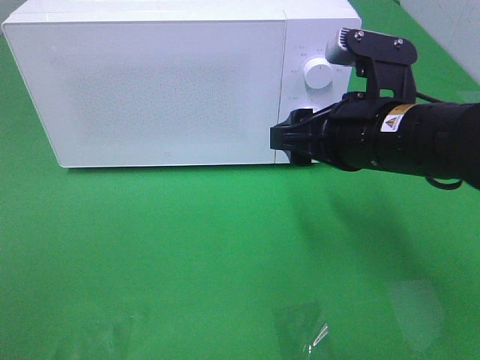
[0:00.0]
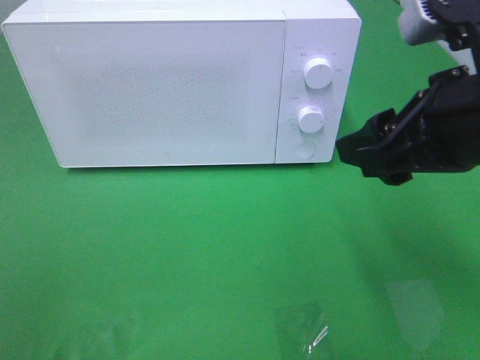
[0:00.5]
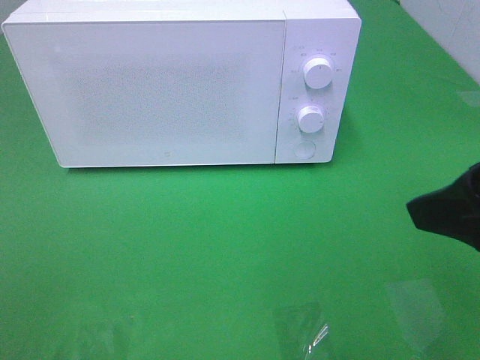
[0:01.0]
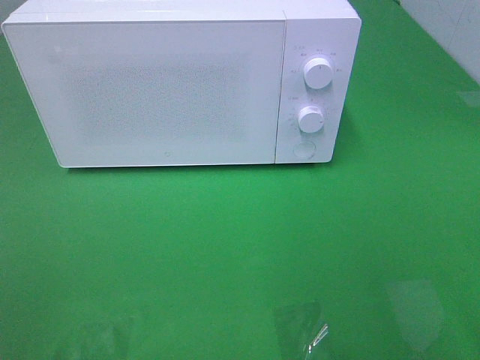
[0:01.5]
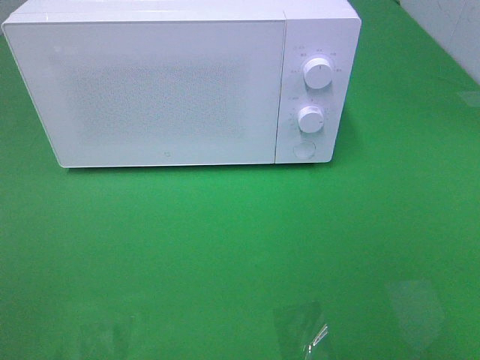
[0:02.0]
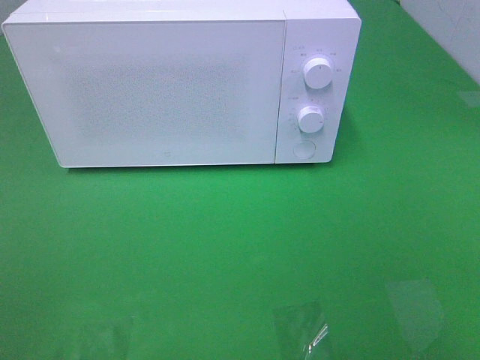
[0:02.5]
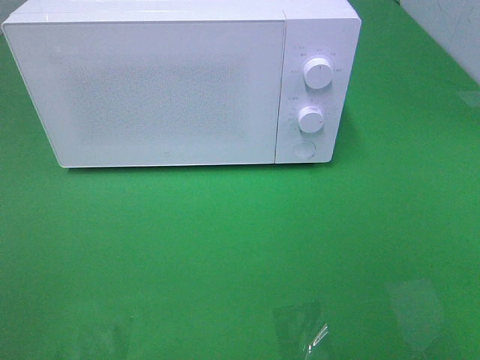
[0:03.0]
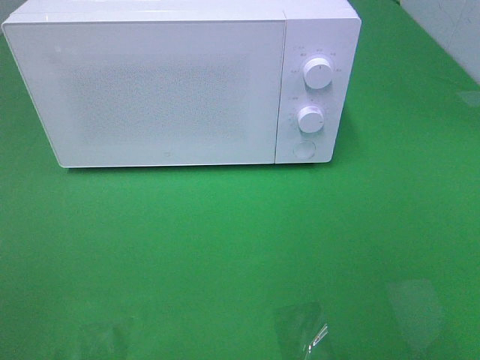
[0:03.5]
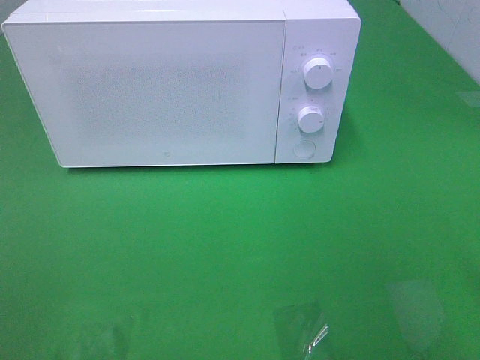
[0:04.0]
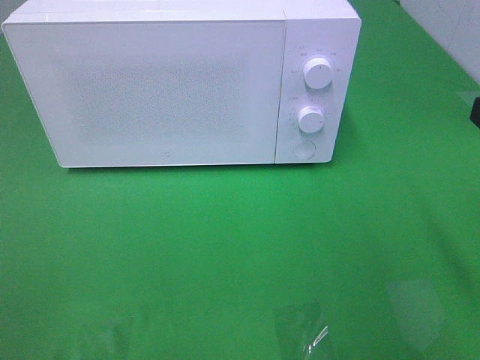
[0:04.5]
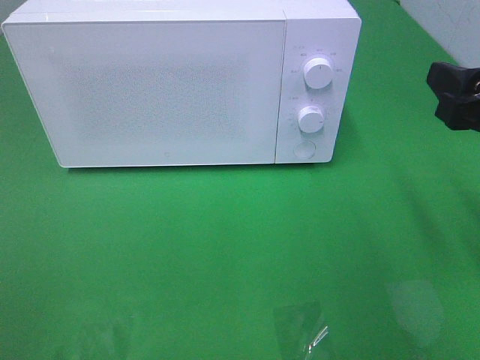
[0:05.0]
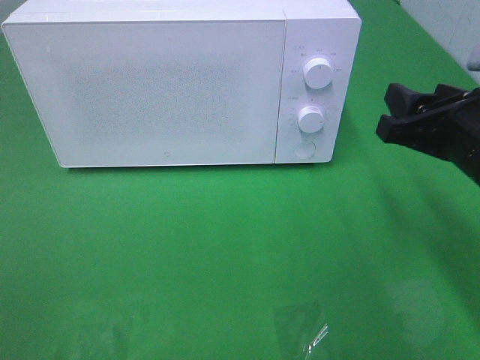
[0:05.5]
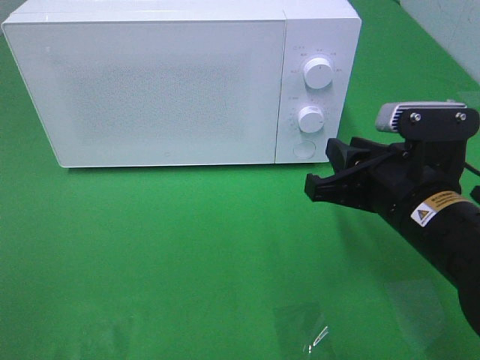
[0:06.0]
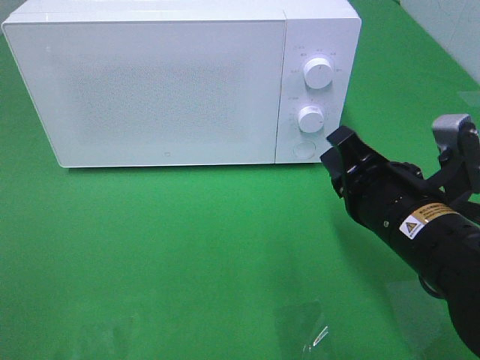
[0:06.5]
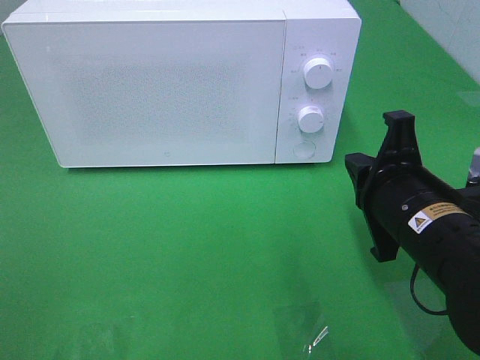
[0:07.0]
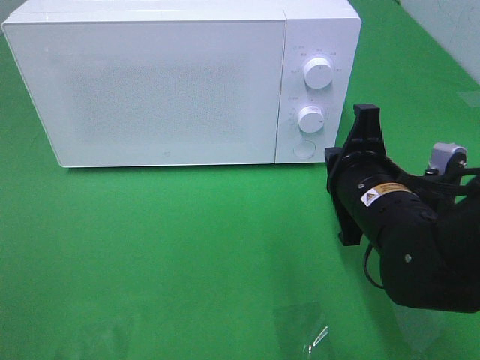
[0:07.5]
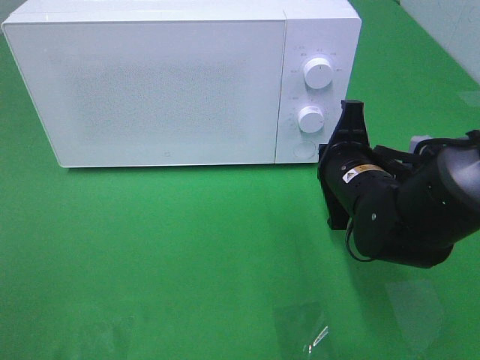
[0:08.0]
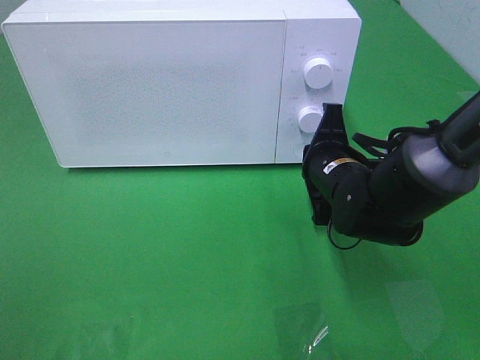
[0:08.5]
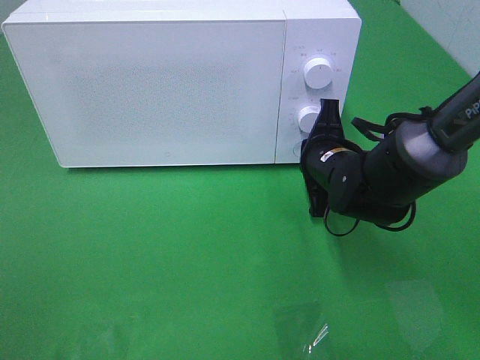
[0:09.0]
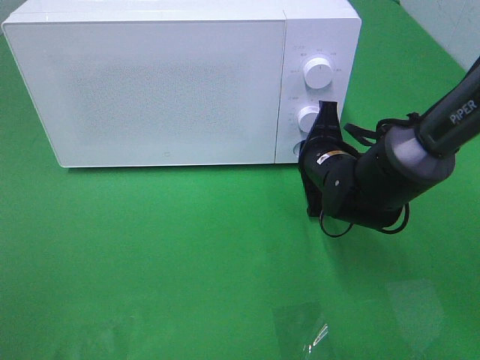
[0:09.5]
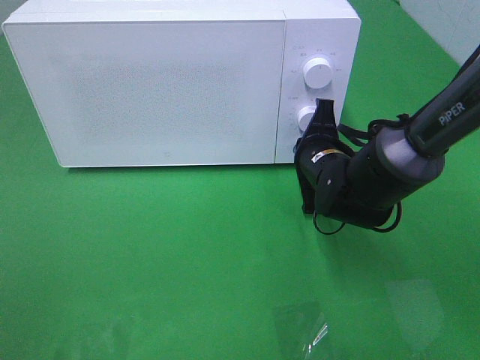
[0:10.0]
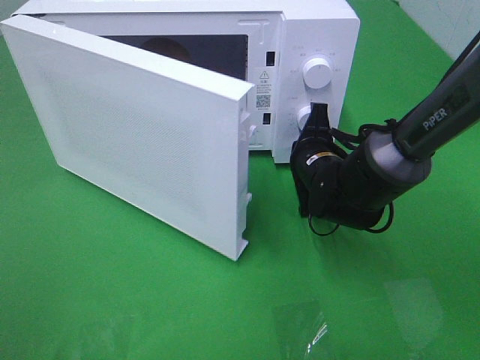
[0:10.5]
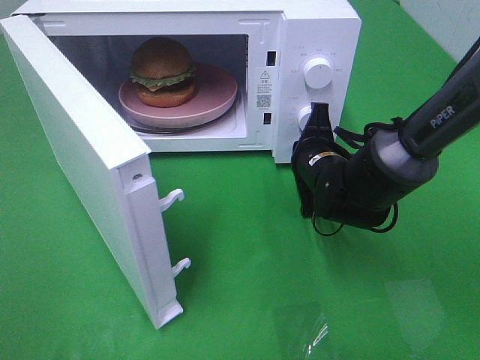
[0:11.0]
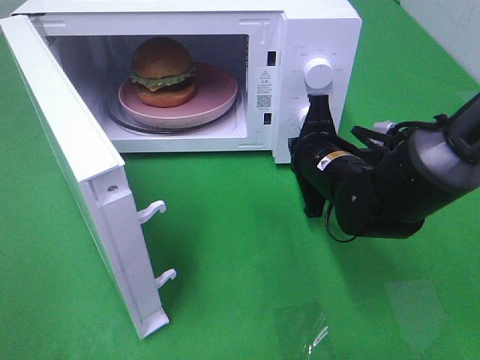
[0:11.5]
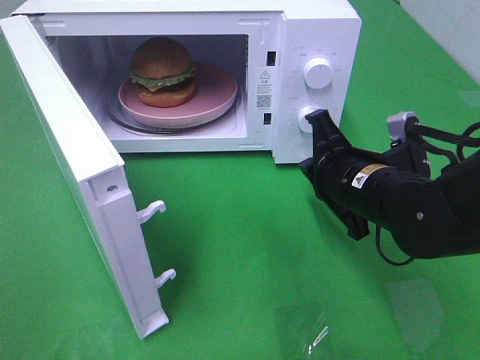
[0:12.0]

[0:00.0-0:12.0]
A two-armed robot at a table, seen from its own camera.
Task of the whole recording: Heat the burger.
Step, 0:00.0 to 0:11.0: Right hand: press the switch.
0:00.0 to 0:02.0: The right gripper travels backward and to the right by approximately 30 cm.
0:04.0 to 0:06.0: The right gripper moves downward, forward and to the left, roughly 20 cm, and closes up.
0:06.0 to 0:08.0: The right gripper shifts roughly 10 cm forward, and closes its fingers.
0:08.0 to 0:10.0: The right gripper is displaced forward by about 5 cm.
0:10.0 to 0:12.0: The right gripper heads backward, covering roughly 10 cm.

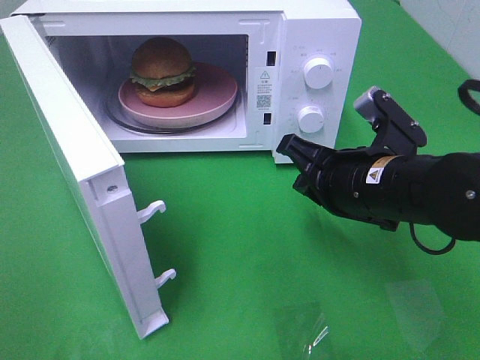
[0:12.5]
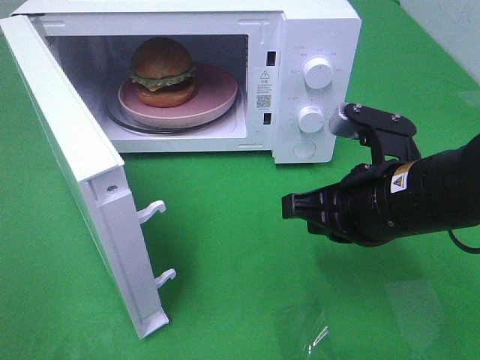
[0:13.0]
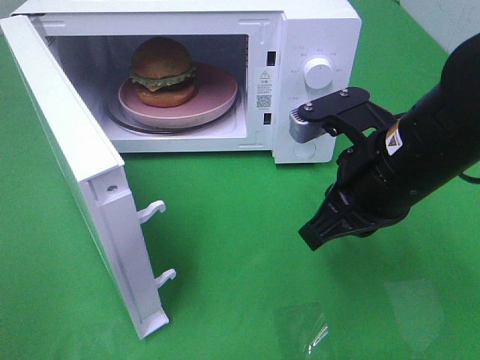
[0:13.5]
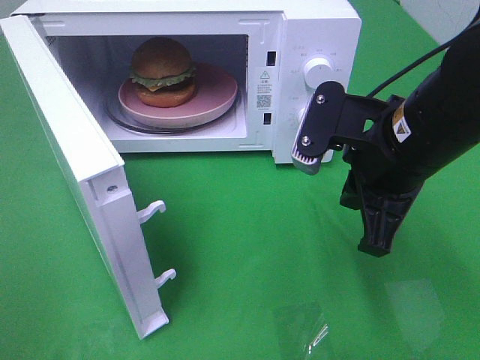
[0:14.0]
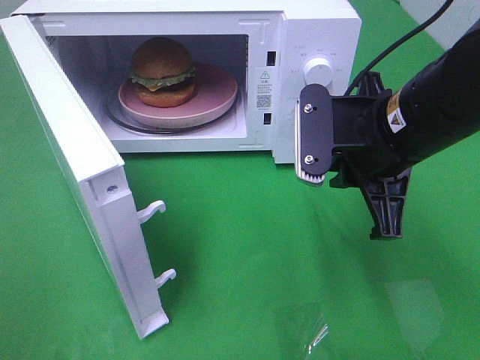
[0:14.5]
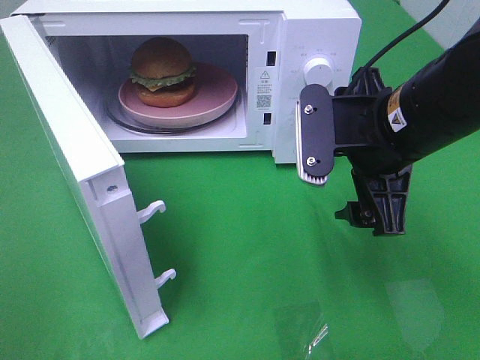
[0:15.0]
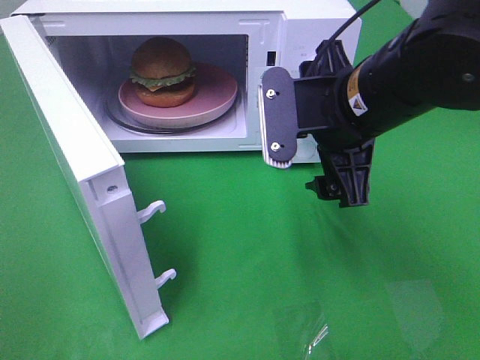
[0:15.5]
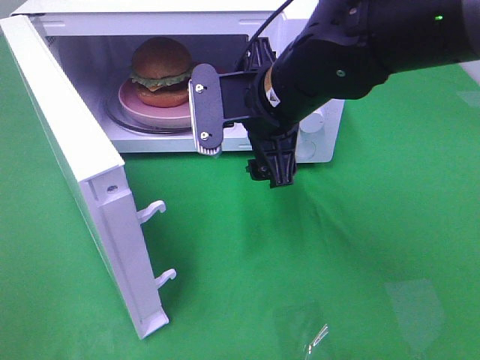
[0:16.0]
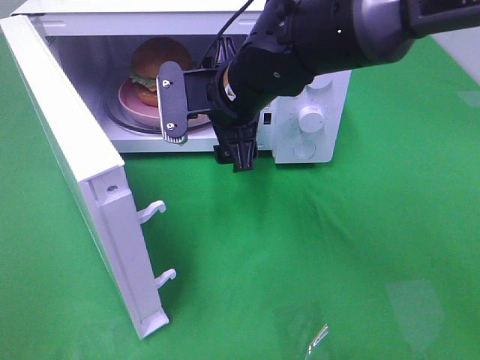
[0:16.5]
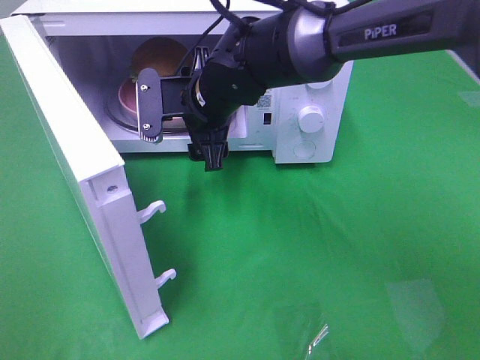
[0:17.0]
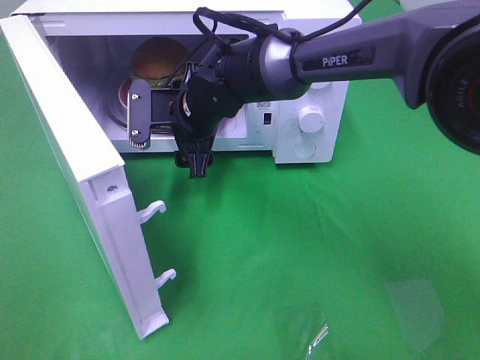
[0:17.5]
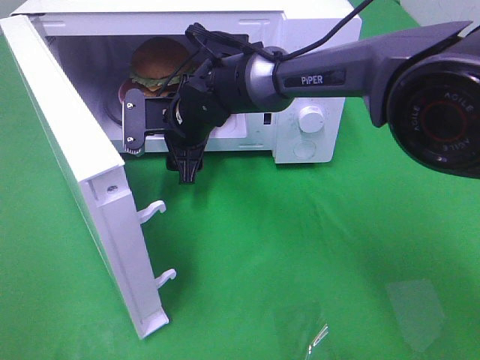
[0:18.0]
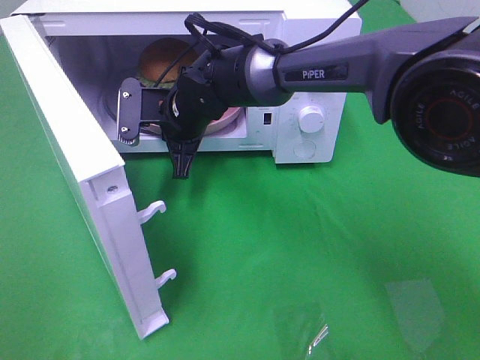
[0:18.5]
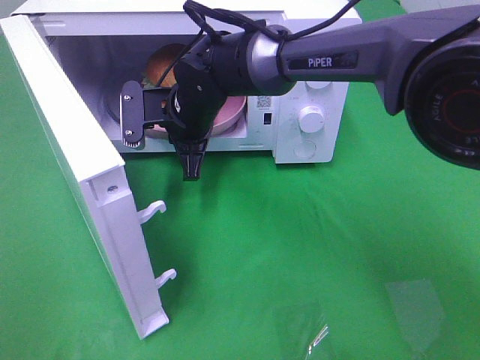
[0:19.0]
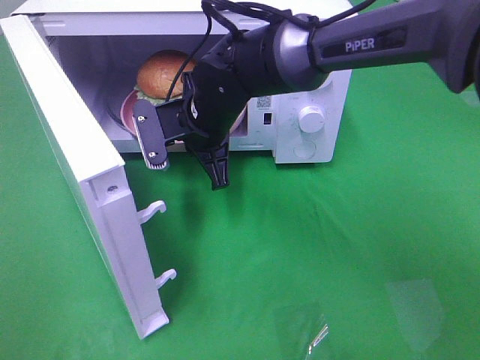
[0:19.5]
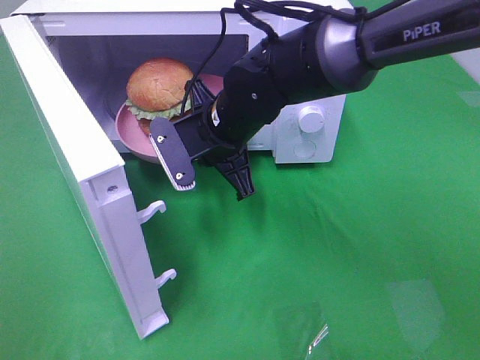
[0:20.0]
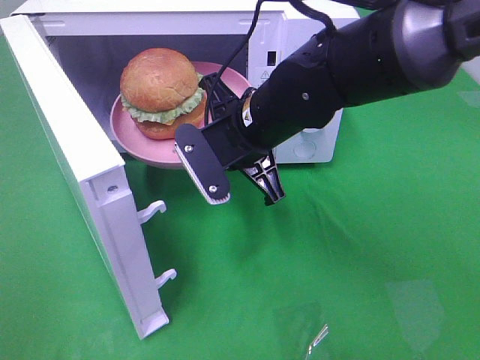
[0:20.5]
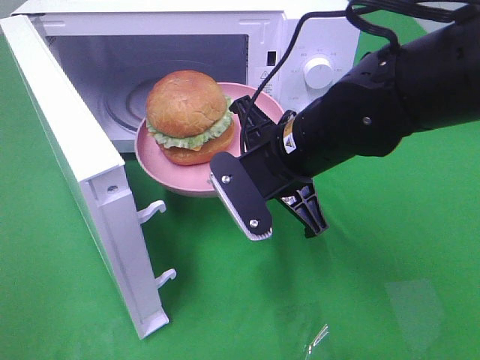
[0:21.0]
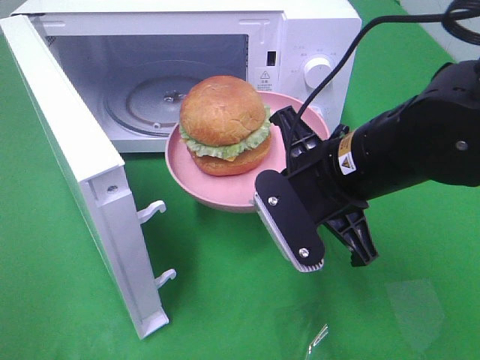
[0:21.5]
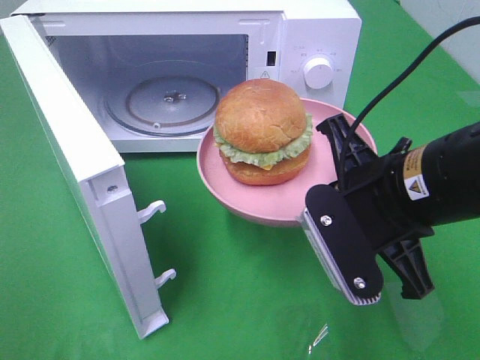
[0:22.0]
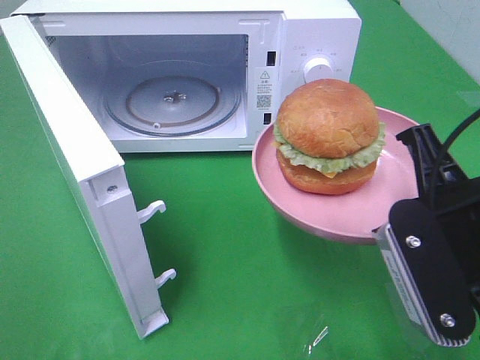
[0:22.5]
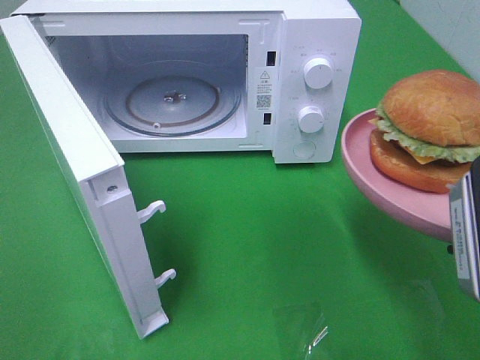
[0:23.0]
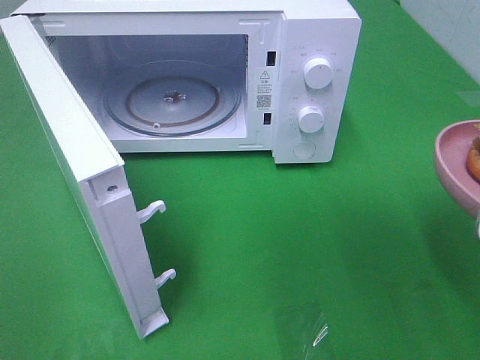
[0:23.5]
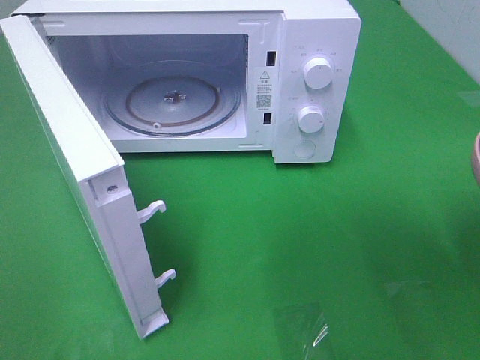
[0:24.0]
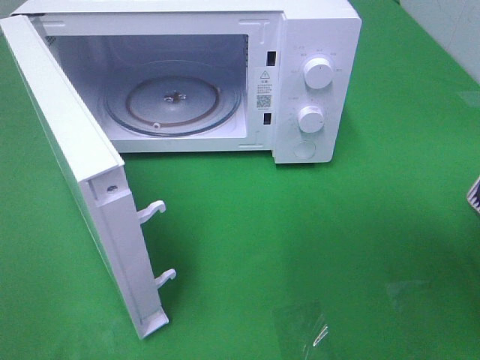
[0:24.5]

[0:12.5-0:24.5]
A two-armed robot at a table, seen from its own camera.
Task of the whole recording: Heat the burger.
Step, 0:12.5 to 0:18.5: Right hand: grab the plate with the hamburger.
0:12.5 to 0:14.5: The right gripper travels upward by some 5 cm.
0:14.5 to 0:16.5: The right gripper is displaced to the left and forward by about 15 cm, and opens up.
0:16.5 to 0:18.5: The right gripper is displaced downward, to the left and forward by some 10 cm, and closes its fingers.
0:18.5 to 0:20.5: The right gripper heads backward and to the right, covering approximately 15 cm.
0:20.5 to 0:22.5: The right gripper travels backward and to the right by approximately 20 cm.
0:22.5 to 0:24.5: The right gripper goes roughly 5 cm to the right.

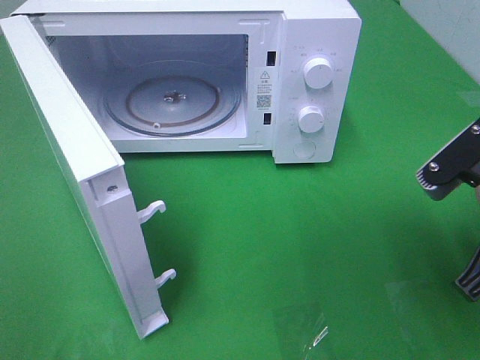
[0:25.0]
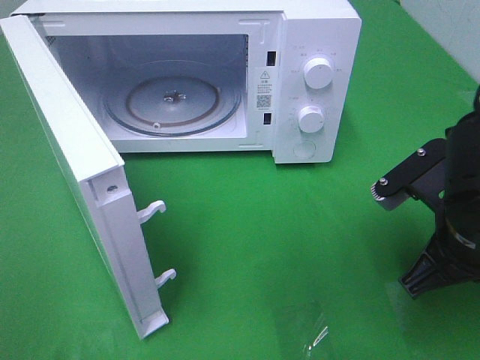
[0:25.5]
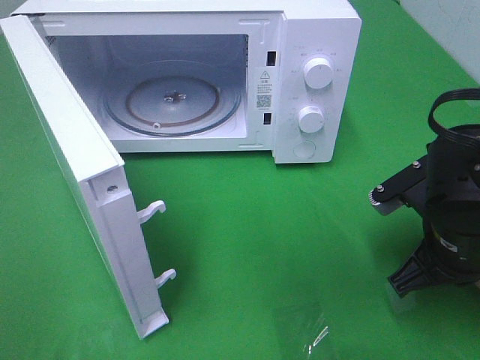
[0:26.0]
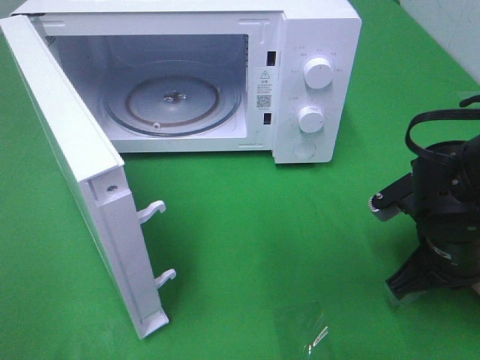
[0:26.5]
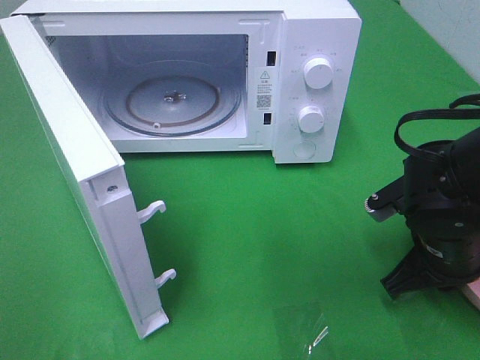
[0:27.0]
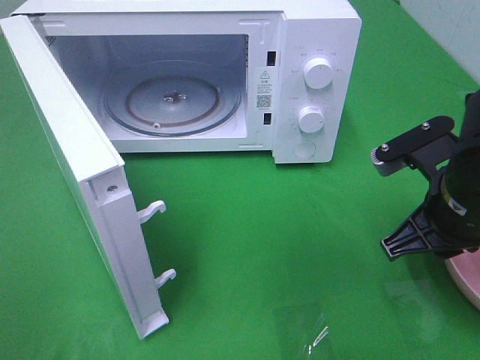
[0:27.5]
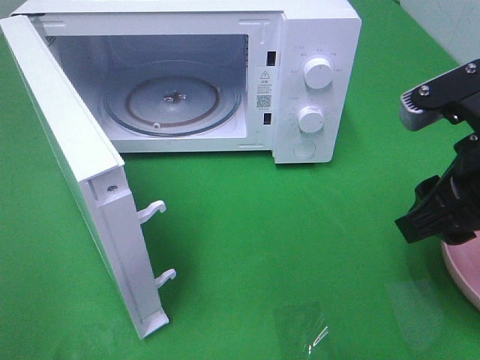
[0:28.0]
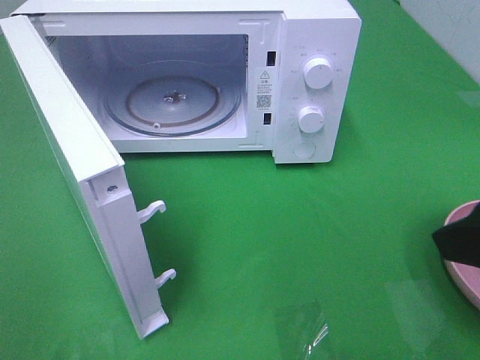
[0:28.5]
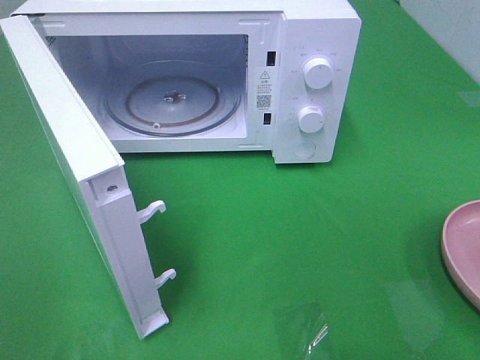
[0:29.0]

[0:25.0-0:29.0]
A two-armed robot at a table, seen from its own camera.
Task of the whole recording: Heat the burger.
Step, 0:25.0 to 0:27.0: Right hand: place the plate on the table.
0:25.0 to 0:27.0: The right gripper is displaced downward and forward by approximately 10 cm.
0:27.0 to 0:29.0: The right gripper heads upward and backward, covering some 25 cm, and opens its fingers.
